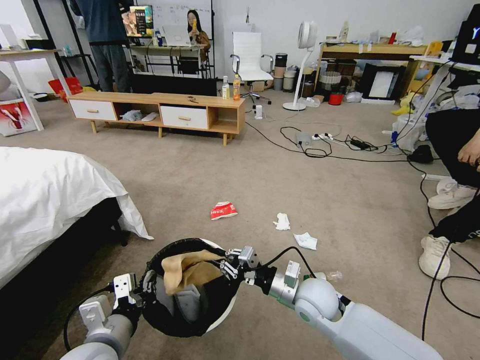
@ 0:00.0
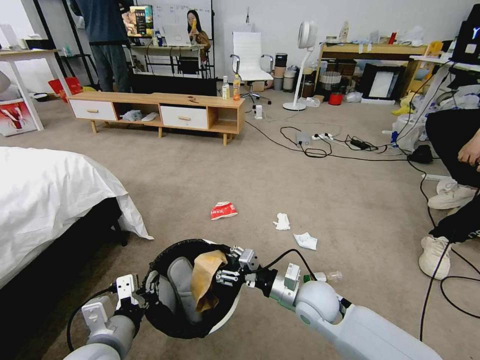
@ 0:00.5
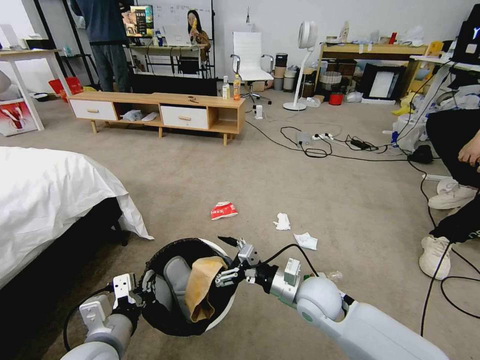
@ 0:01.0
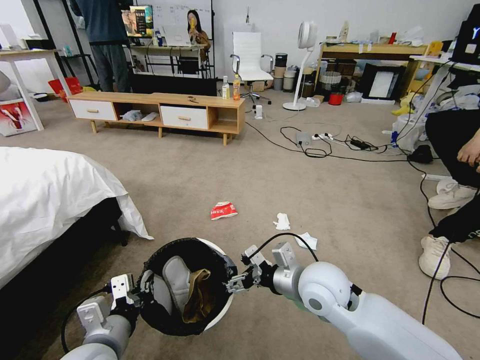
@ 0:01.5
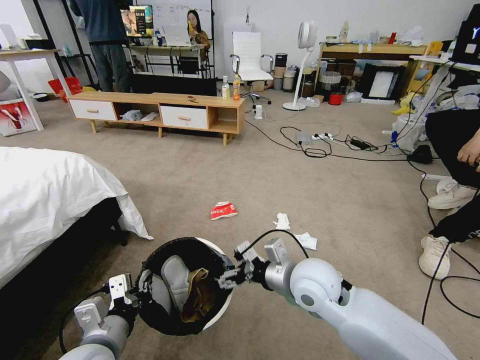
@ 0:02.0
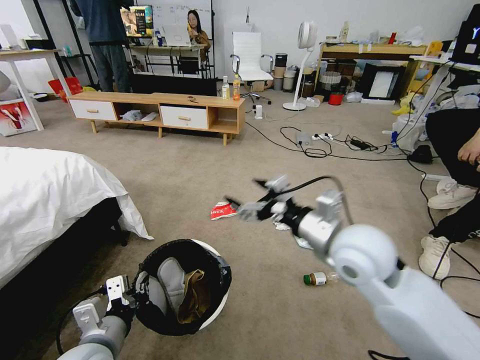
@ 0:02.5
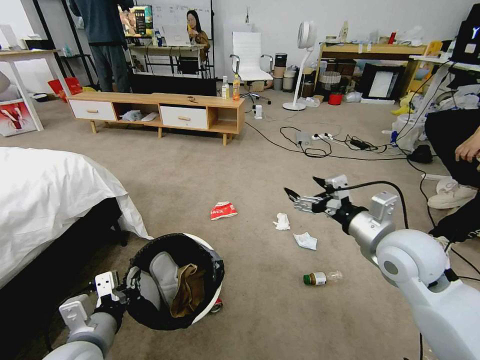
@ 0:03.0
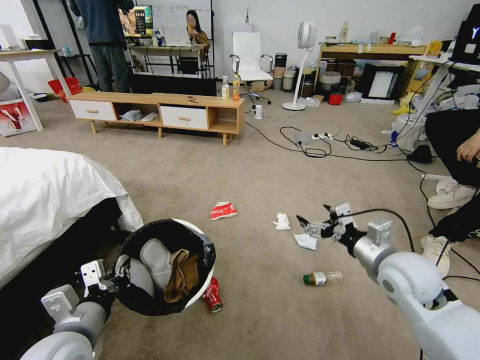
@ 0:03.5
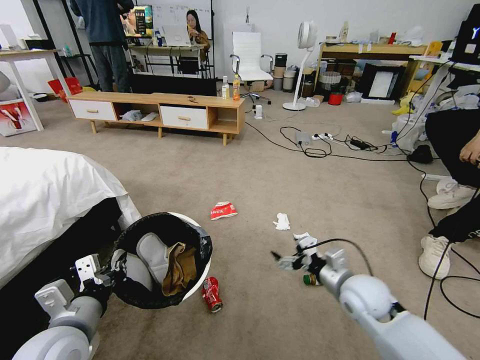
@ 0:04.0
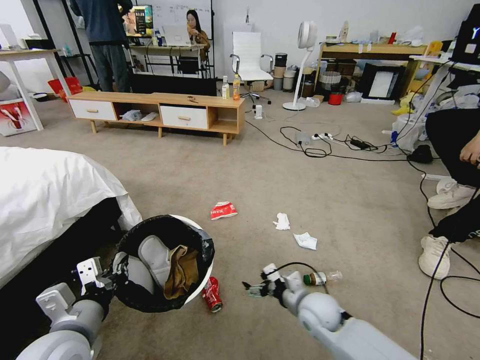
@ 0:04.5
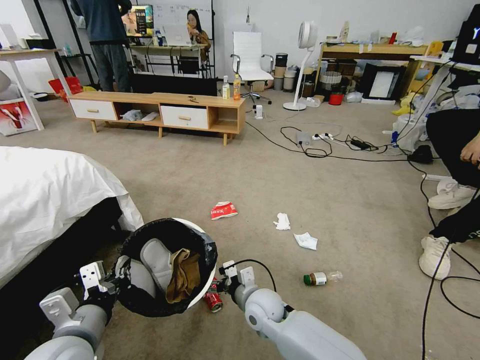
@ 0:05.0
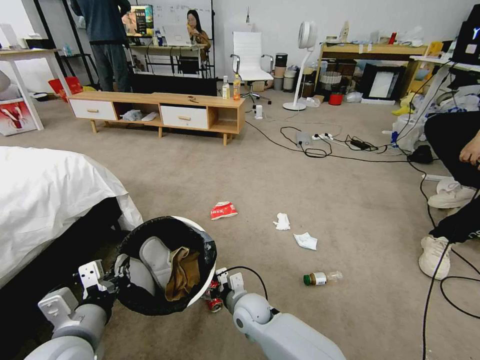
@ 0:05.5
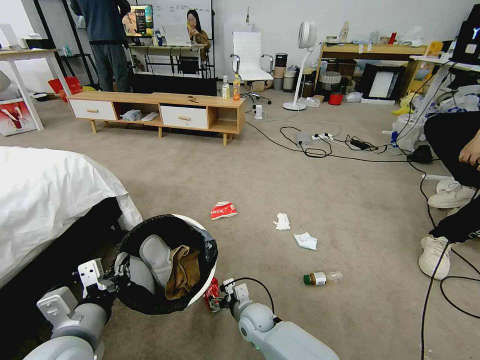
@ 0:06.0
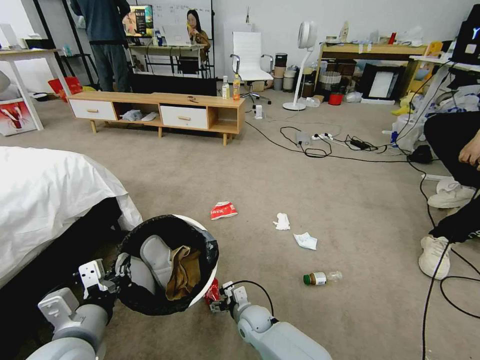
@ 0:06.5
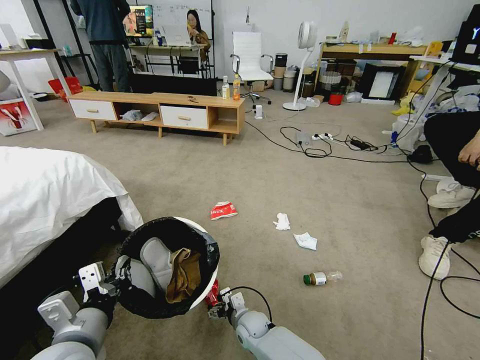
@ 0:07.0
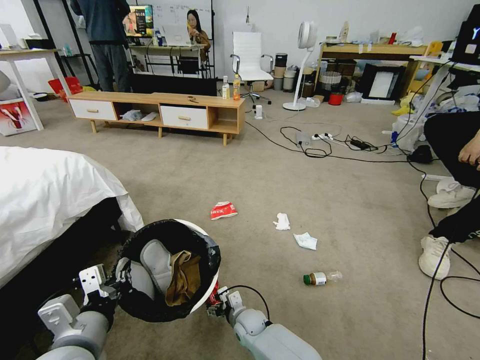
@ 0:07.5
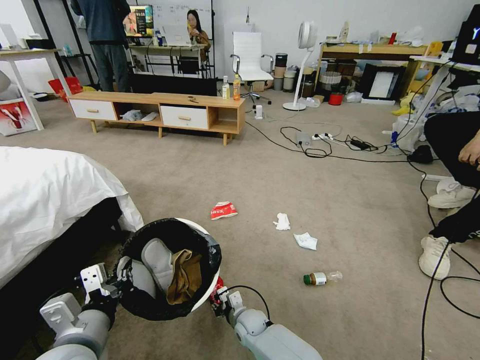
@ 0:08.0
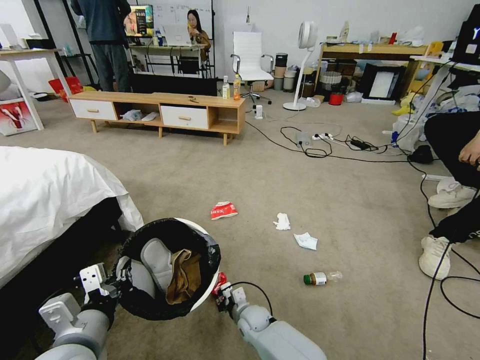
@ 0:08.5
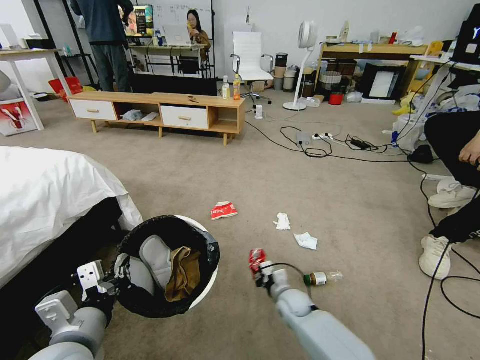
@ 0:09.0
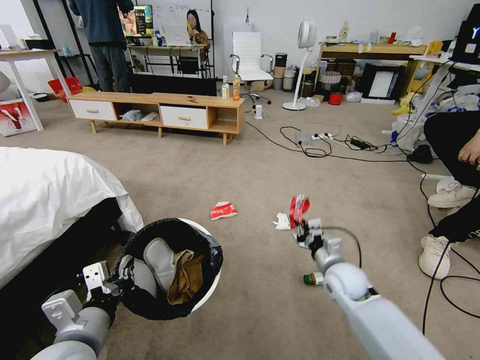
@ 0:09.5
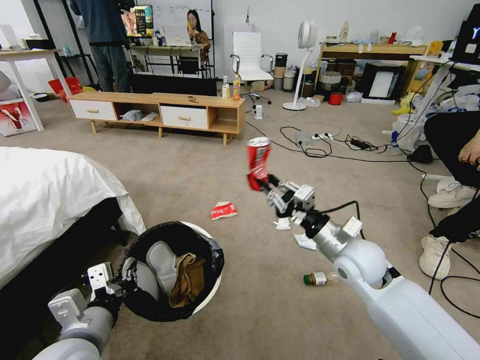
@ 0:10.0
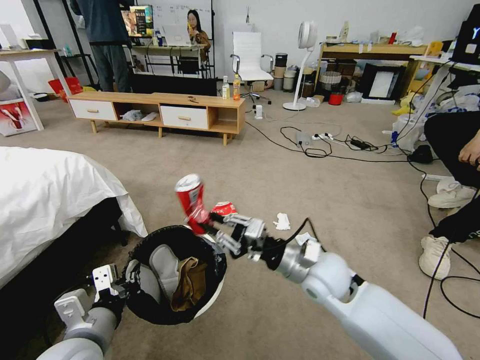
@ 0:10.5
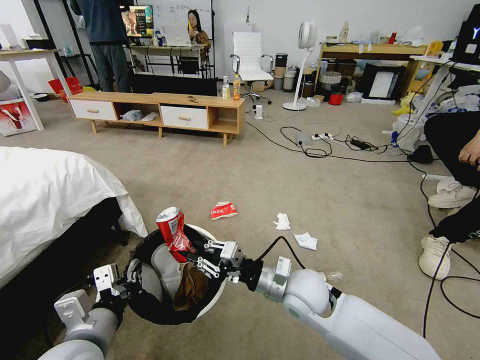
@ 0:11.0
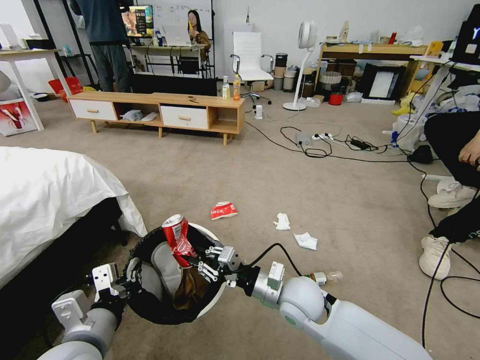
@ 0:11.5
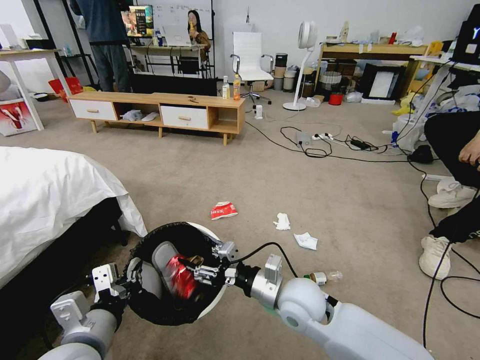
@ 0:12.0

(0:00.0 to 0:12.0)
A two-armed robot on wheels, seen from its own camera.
Task of the whole recording: Pick up the trash bin and place the garbage on the floor into it.
0:00.0 - 0:02.0: The right gripper travels upward by about 10 cm, and opens up.
0:02.0 - 0:04.0: The left gripper shifts by roughly 5 cm, while the right gripper travels to the right and downward by approximately 15 cm.
0:04.0 - 0:06.0: The right gripper shifts roughly 30 cm to the left and downward.
0:06.0 - 0:08.0: The right gripper heads downward, covering about 5 cm, and closes.
0:08.0 - 0:10.0: The right gripper is displaced upward and to the right by approximately 40 cm.
0:10.0 - 0:12.0: The right gripper heads to the left, downward and backward, covering about 15 cm, and opens its fingers.

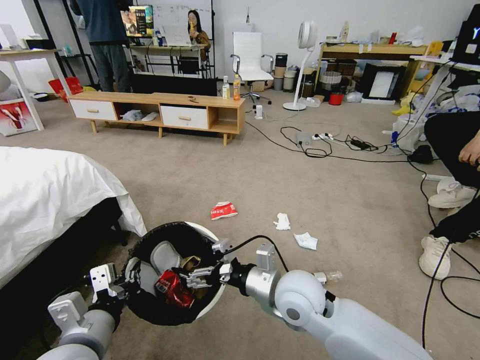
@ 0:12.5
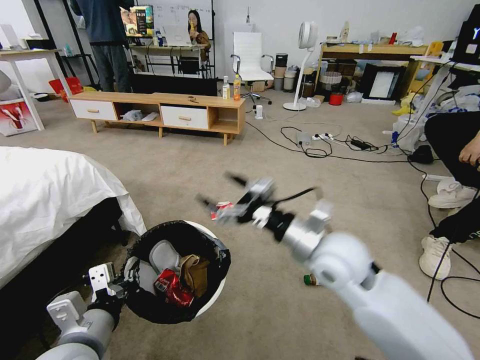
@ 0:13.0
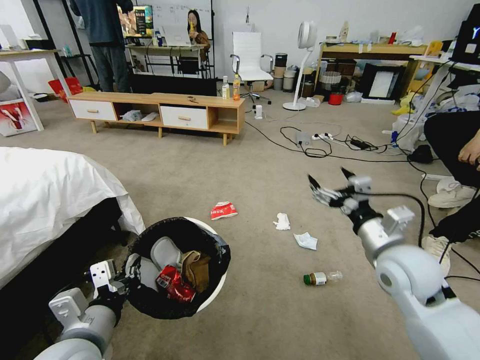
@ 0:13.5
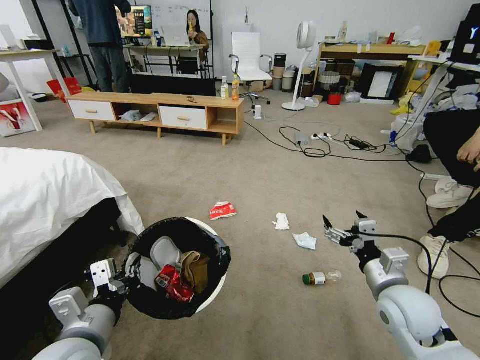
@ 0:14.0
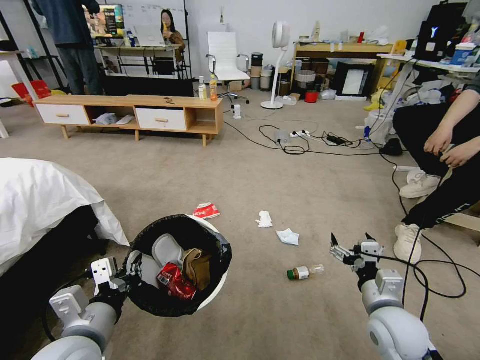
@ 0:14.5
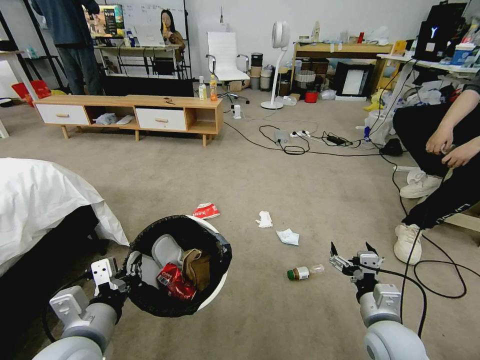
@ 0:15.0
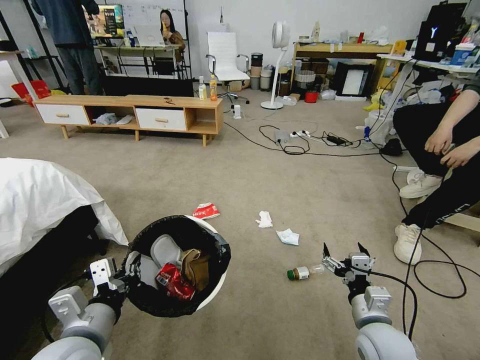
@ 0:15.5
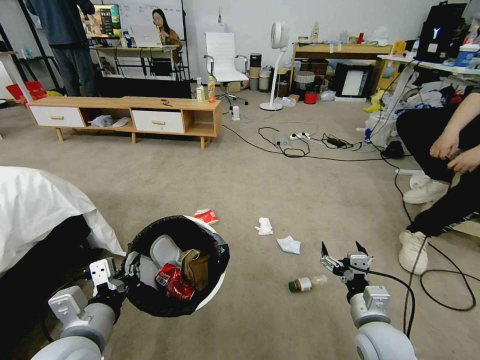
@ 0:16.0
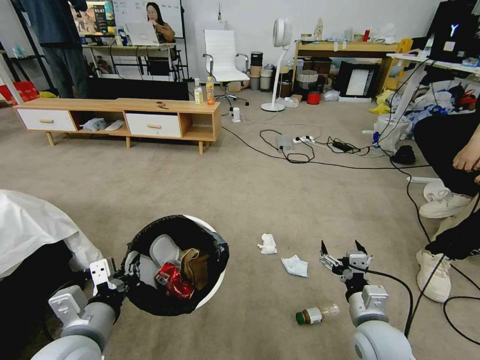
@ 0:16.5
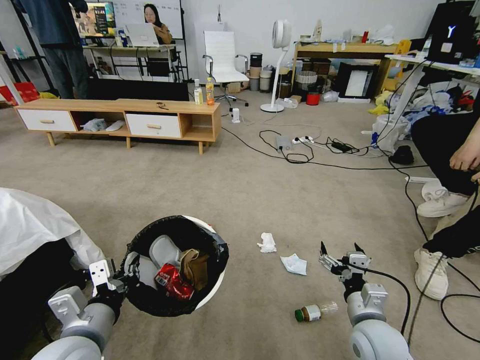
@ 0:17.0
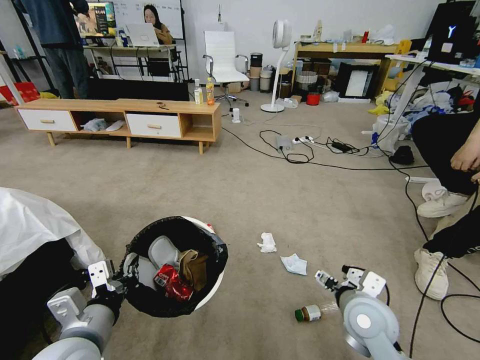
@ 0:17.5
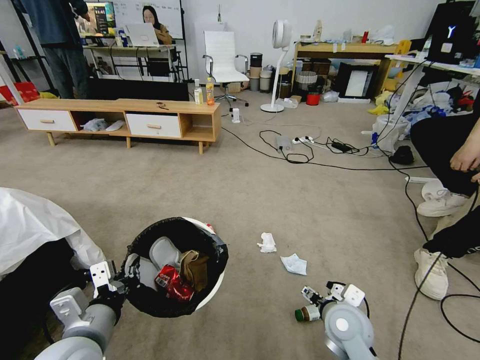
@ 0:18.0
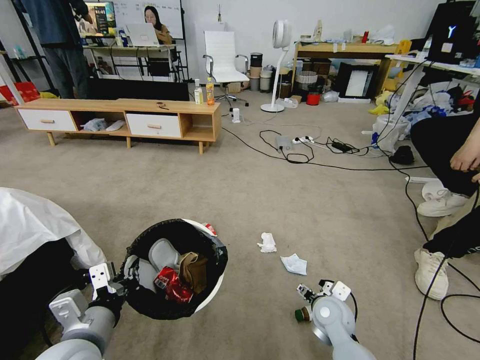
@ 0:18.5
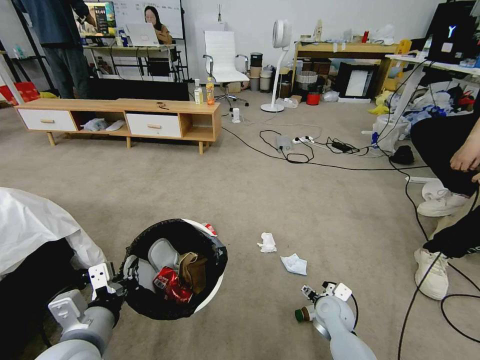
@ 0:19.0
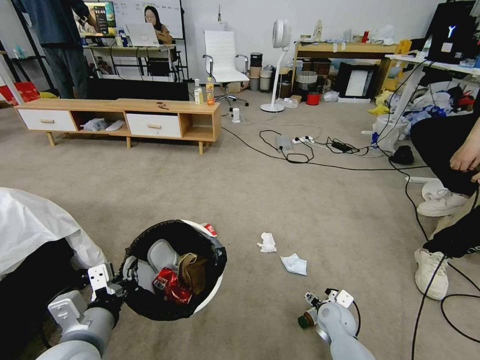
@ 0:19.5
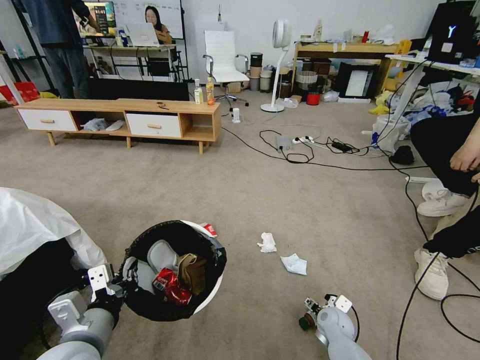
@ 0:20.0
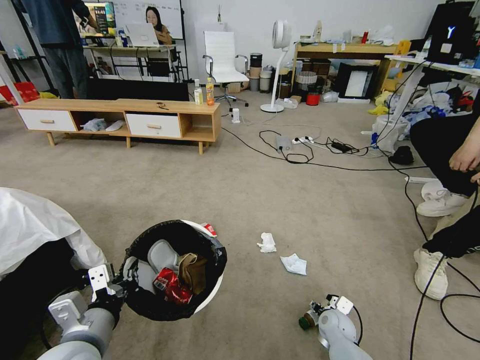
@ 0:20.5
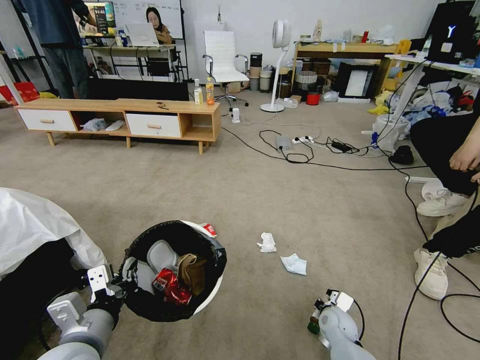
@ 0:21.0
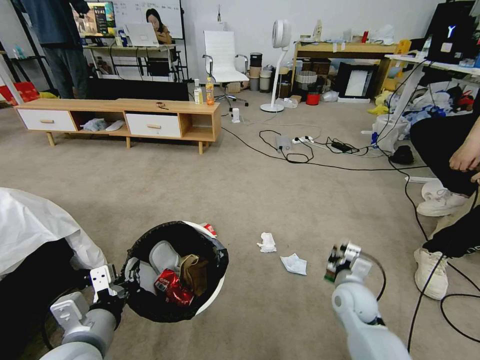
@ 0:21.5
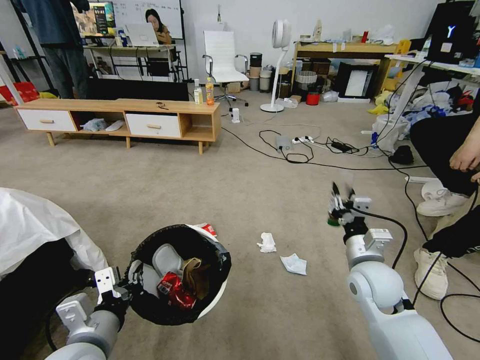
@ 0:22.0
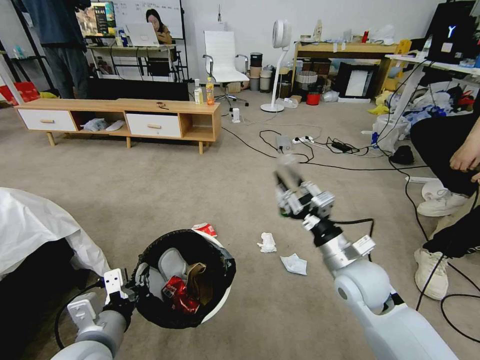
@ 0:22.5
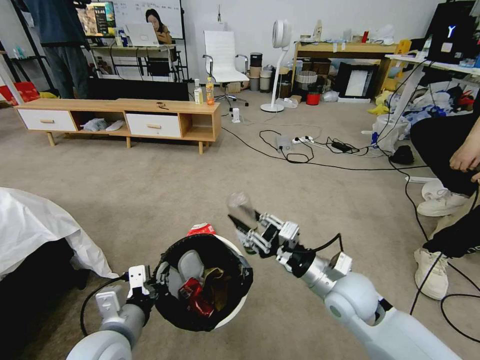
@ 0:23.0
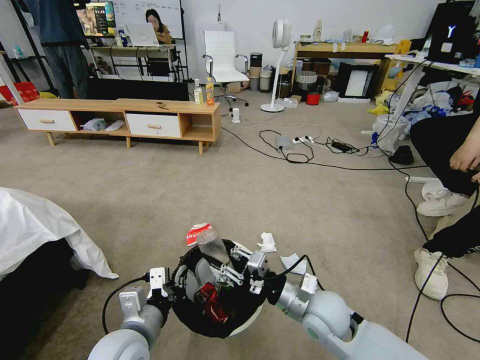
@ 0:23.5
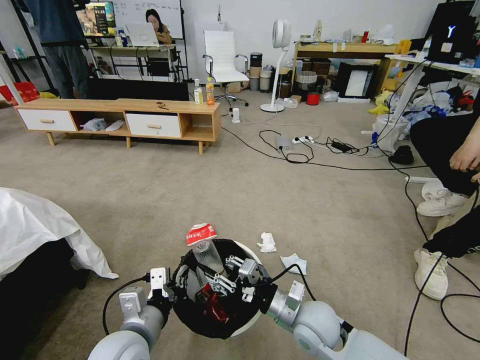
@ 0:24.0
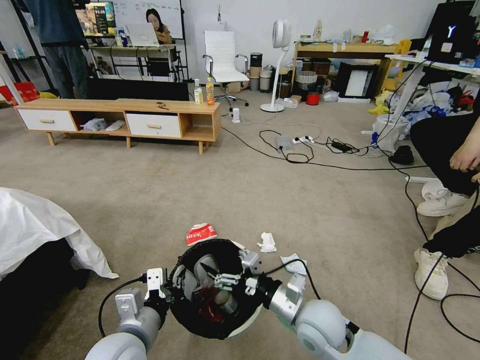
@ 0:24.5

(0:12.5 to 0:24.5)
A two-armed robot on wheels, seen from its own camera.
Task of the whole recording: Pick up the trash bin and place the garbage on the floor into it.
0:12.5 - 0:14.5: The right gripper is displaced to the right by some 20 cm.
0:16.5 - 0:18.5: The right gripper moves forward and to the left, some 10 cm.
0:18.5 - 0:20.5: The right gripper goes approximately 15 cm downward and to the right.
0:20.5 - 0:22.5: The right gripper goes some 30 cm upward, and closes its fingers.
0:22.5 - 0:24.5: The right gripper travels to the left, downward and backward by about 10 cm, and opens its fingers. Meanwhile the left gripper ends up approximately 5 cm from where it was.

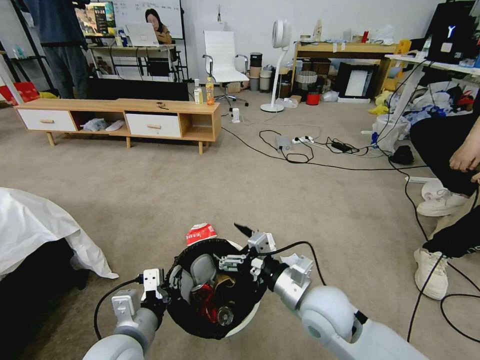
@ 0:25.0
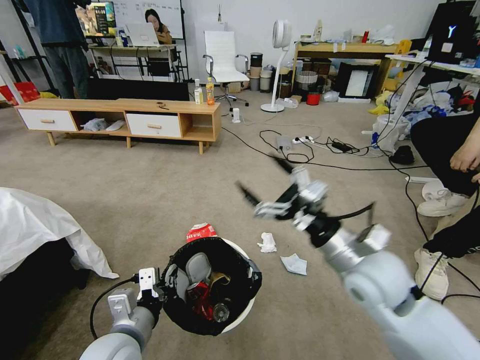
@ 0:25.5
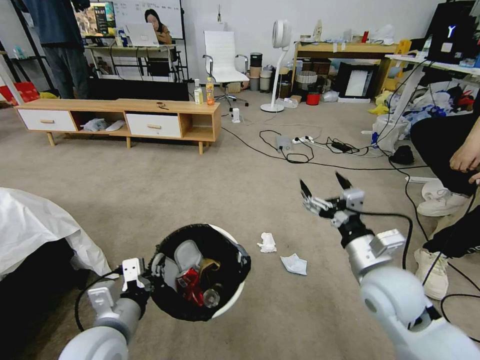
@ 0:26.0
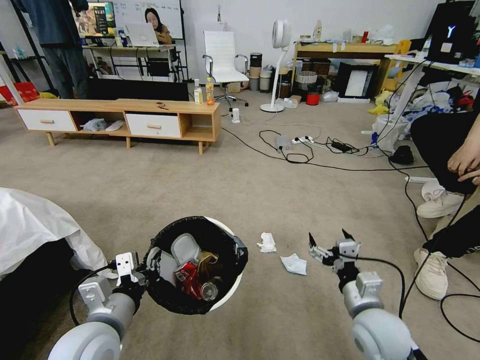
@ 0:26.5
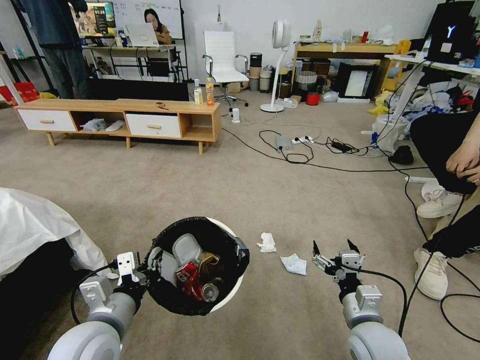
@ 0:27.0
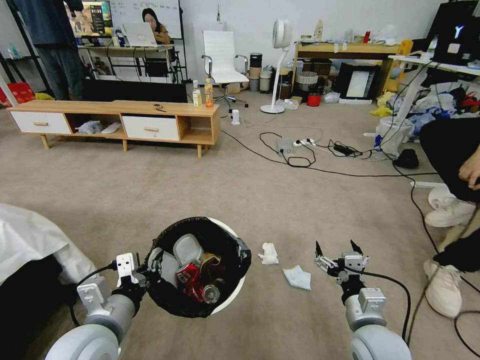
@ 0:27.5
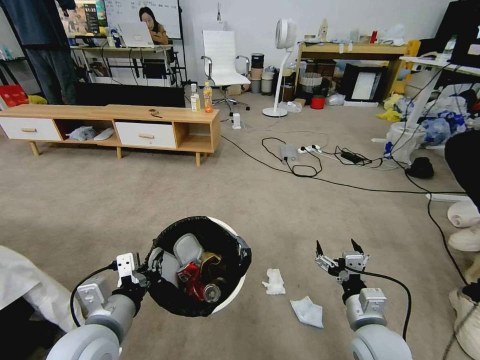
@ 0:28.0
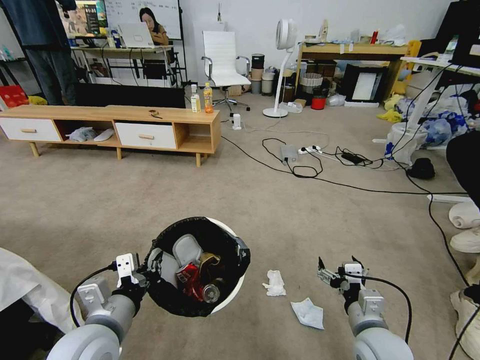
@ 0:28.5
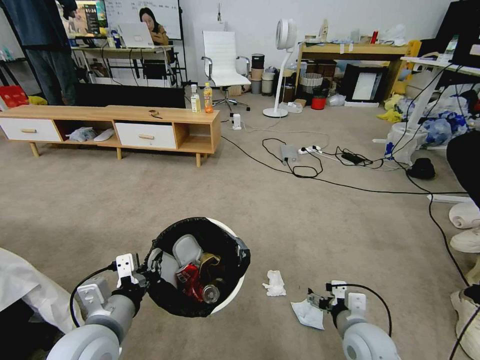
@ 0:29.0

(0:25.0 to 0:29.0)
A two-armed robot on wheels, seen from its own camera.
Task of the whole recording: Pick up the trash bin and place the garbage on the floor into it.
0:25.0 - 0:27.0: The right gripper is displaced to the right and downward by about 10 cm.
